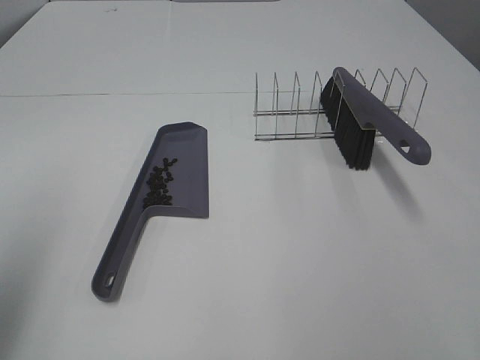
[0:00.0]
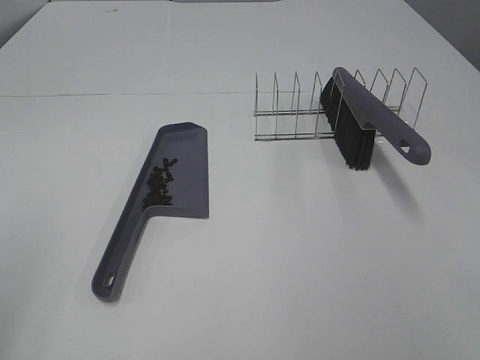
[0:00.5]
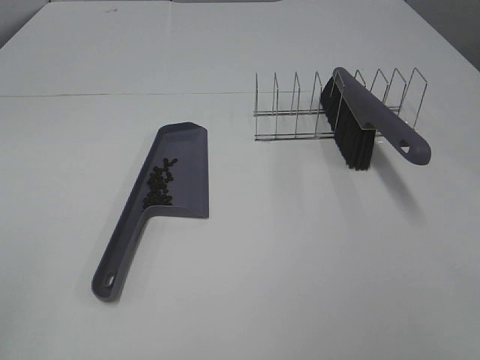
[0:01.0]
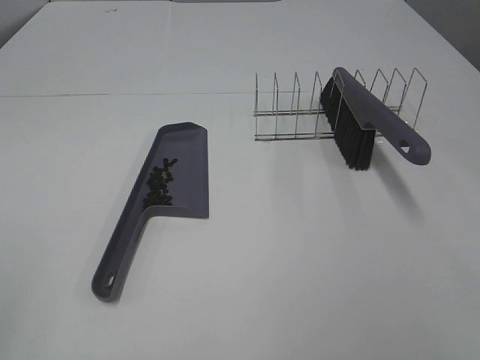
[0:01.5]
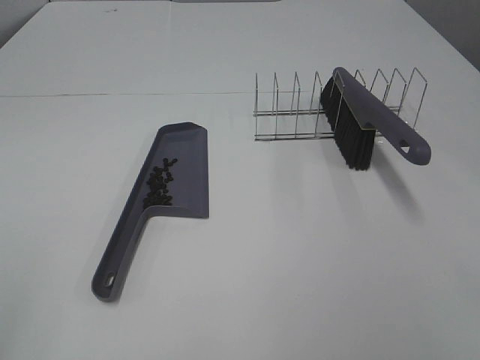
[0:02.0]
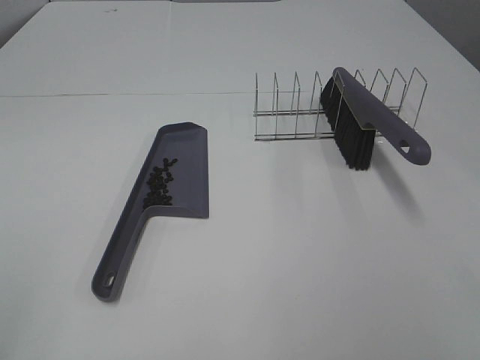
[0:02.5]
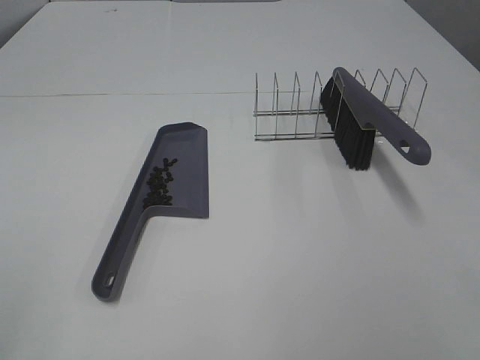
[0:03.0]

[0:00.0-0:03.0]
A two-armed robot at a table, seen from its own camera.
Task of the whole recording: Sweep Coffee Bean.
0:00.0 to 0:01.5: The left gripper moves backward, approximately 15 cm.
0:01.5 to 0:03.0: Both grippers stay put.
